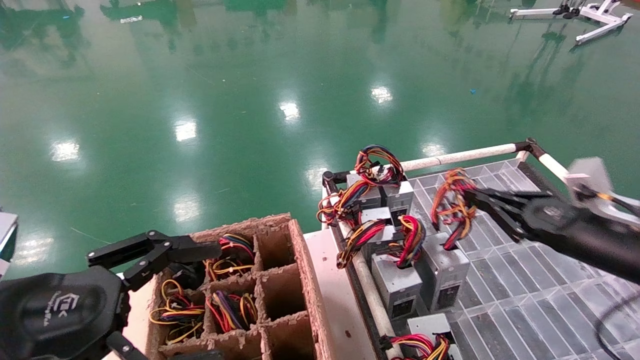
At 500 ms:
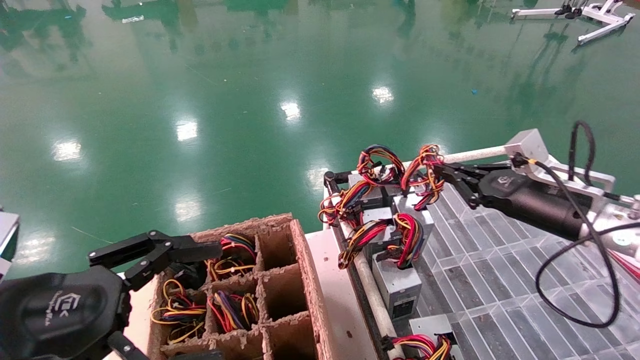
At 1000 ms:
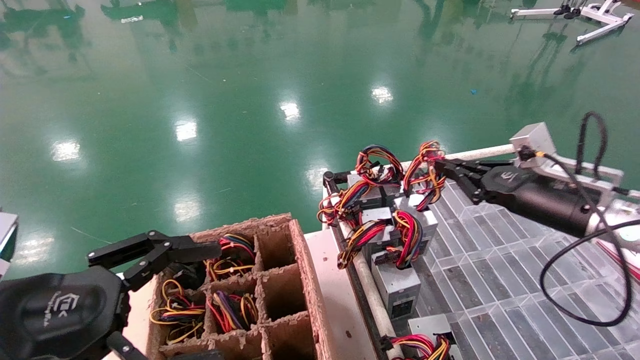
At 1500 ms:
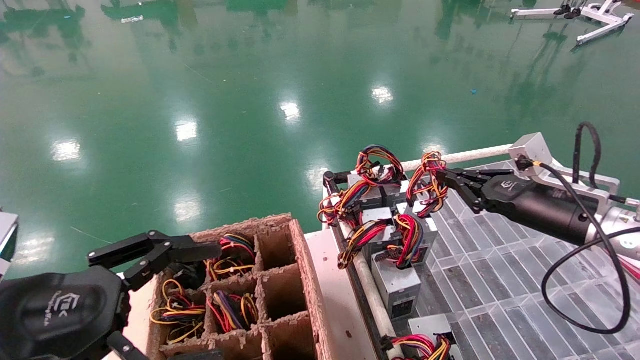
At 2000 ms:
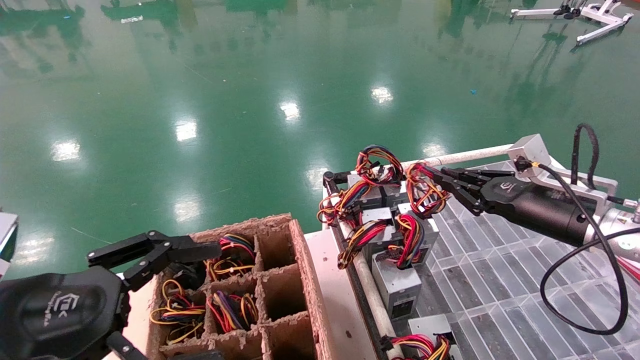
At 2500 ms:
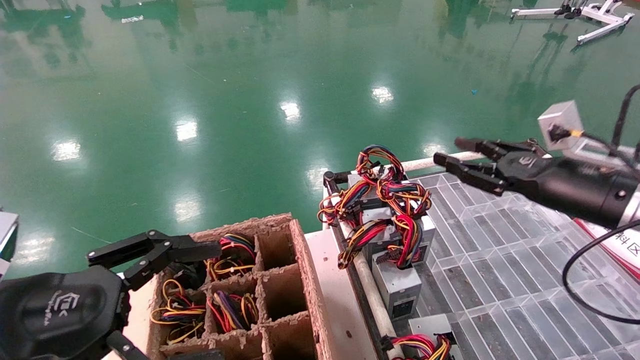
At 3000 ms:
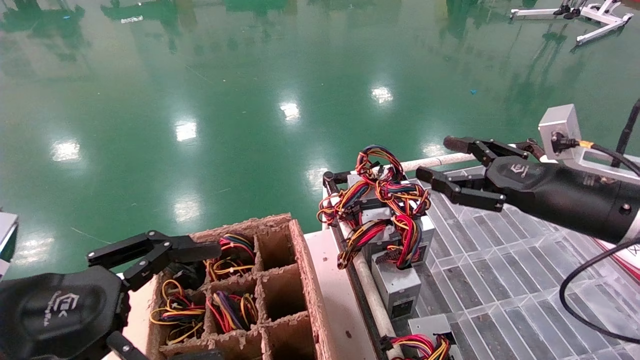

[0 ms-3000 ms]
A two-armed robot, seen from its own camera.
Step, 0 ms to 2000 ms: Place the power supply on the operating table.
0 ms to 1500 ms: The right gripper changes place by some 5 cm.
1500 ms to 3000 ms: The right gripper goes roughly 5 cm backward, and opens.
